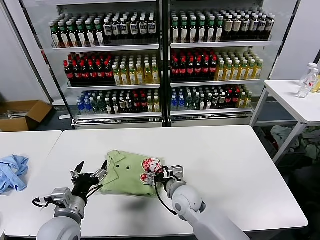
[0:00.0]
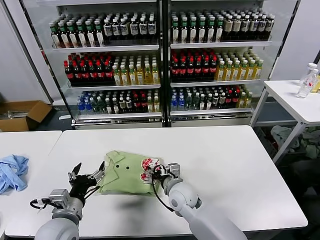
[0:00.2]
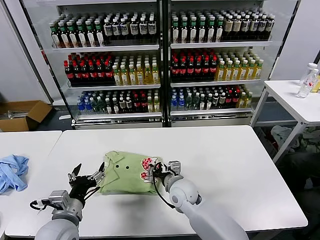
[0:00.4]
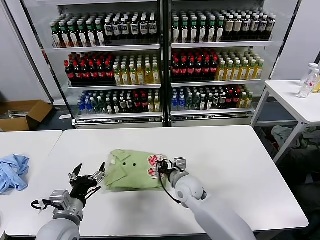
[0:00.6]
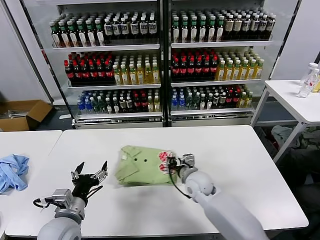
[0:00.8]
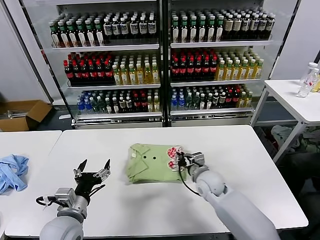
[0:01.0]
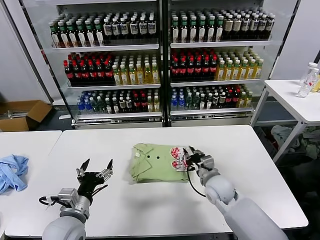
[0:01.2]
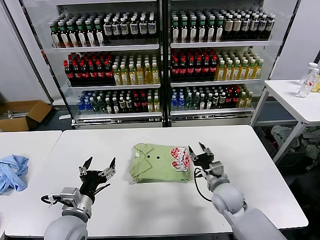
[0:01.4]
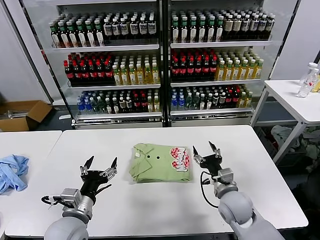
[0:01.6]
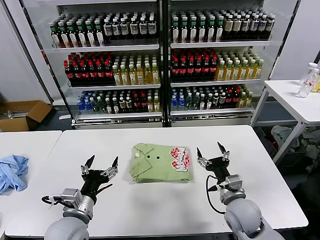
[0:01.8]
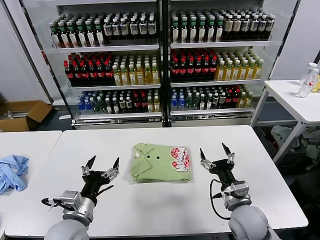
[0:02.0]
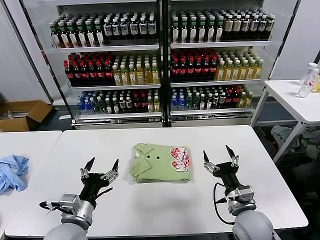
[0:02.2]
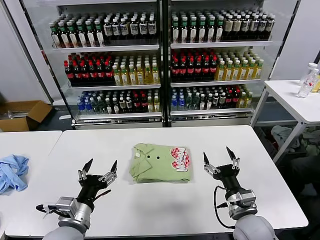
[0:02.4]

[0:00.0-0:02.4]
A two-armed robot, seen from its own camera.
Task of the whole recording: fold and organize the clothes.
Step, 0:00.0 to 0:01.2: Drag the clothes to the center of the table.
0:00.0 to 0:01.2: The right gripper goes some 10 cm to the right, and closes its fingers.
0:01.2 to 0:02.4: The right gripper is displaced backward by roughly 15 cm, and opens its fingers.

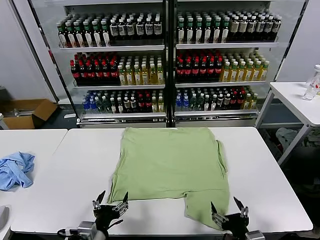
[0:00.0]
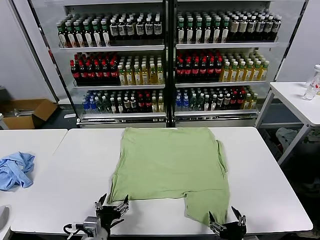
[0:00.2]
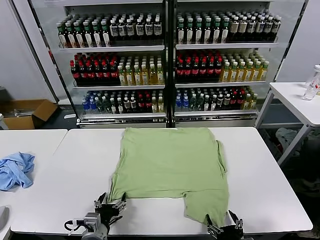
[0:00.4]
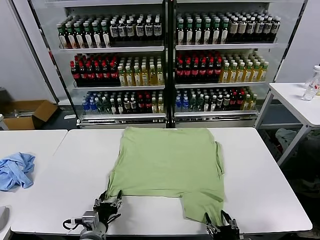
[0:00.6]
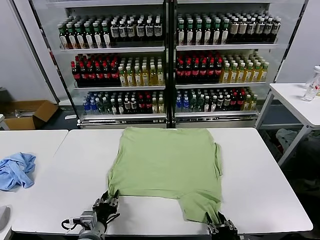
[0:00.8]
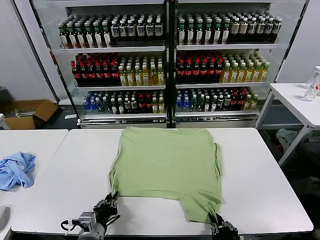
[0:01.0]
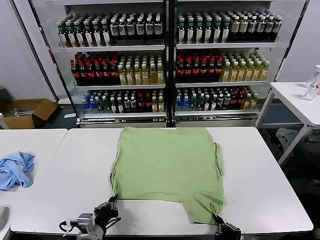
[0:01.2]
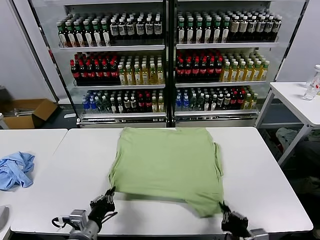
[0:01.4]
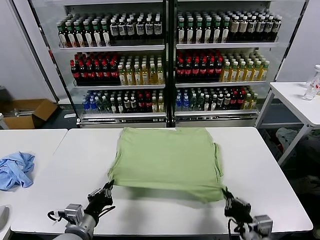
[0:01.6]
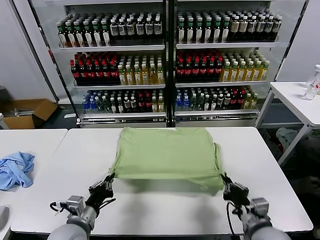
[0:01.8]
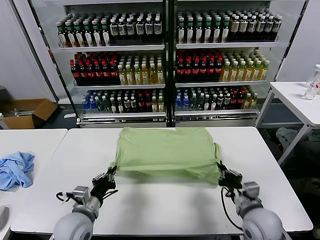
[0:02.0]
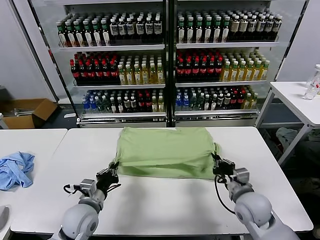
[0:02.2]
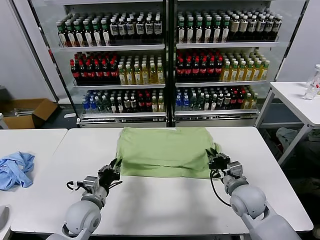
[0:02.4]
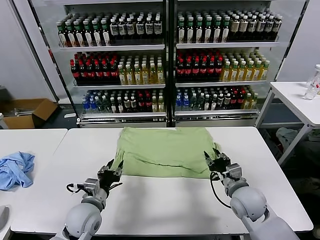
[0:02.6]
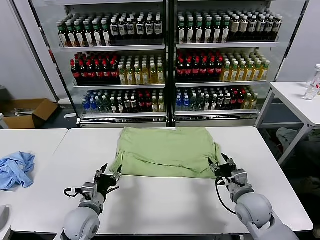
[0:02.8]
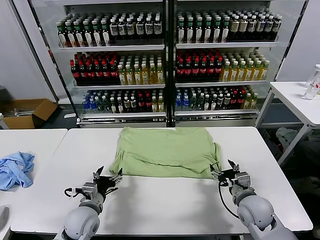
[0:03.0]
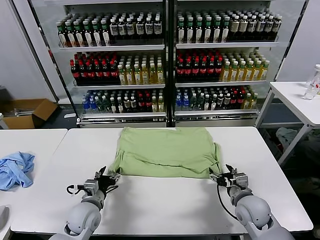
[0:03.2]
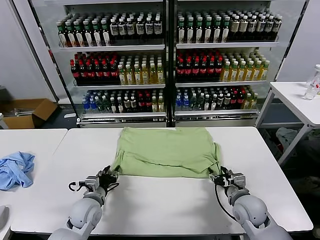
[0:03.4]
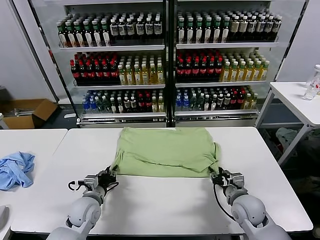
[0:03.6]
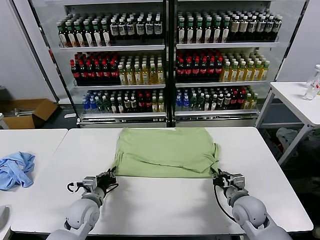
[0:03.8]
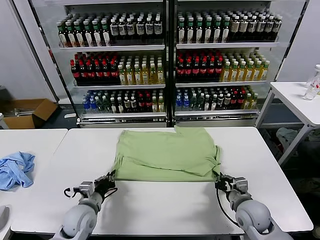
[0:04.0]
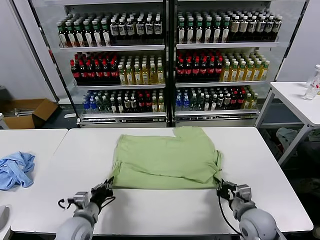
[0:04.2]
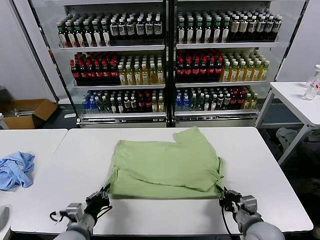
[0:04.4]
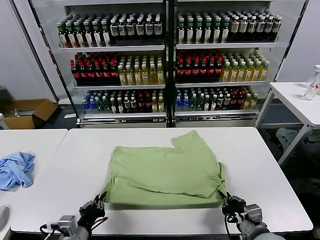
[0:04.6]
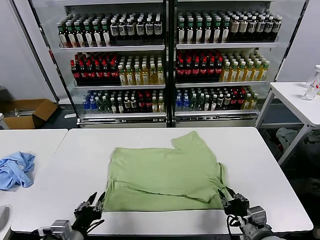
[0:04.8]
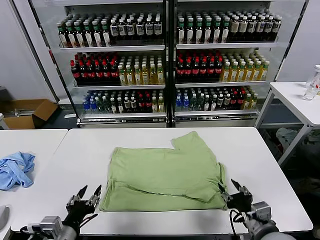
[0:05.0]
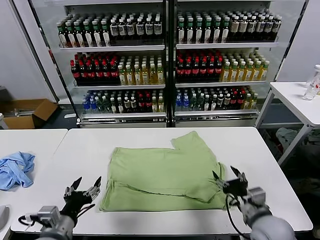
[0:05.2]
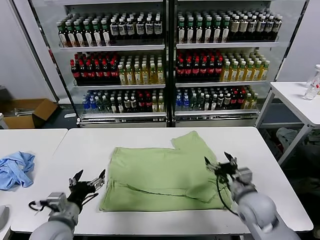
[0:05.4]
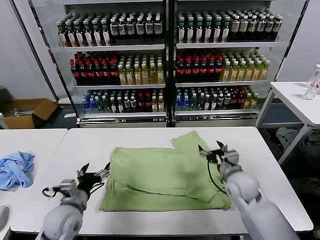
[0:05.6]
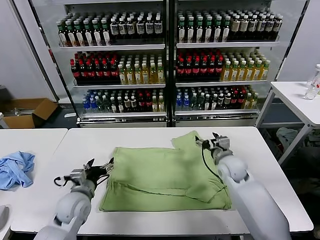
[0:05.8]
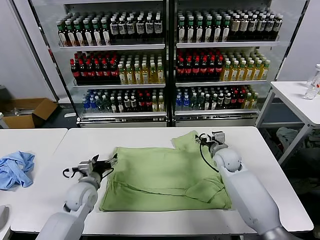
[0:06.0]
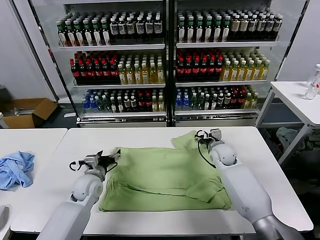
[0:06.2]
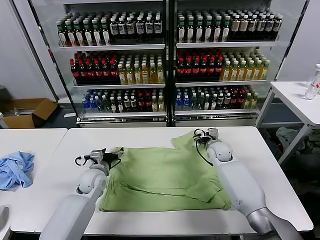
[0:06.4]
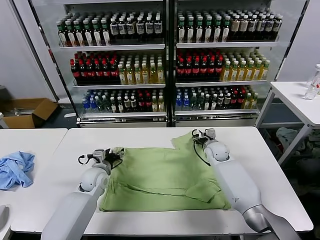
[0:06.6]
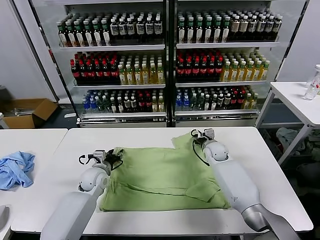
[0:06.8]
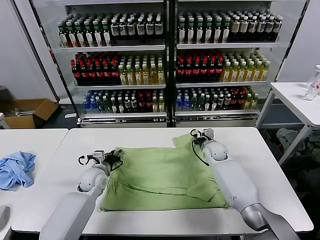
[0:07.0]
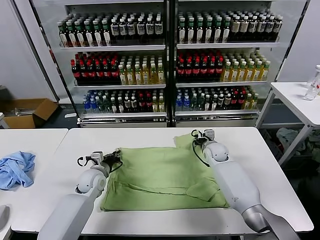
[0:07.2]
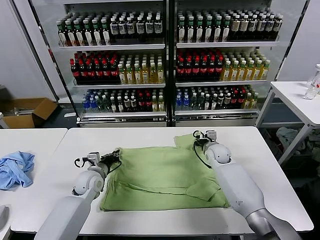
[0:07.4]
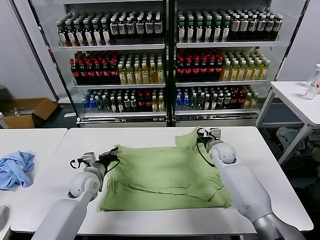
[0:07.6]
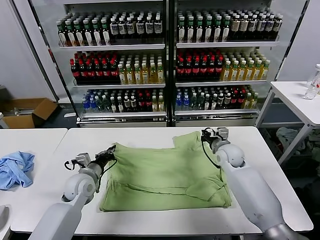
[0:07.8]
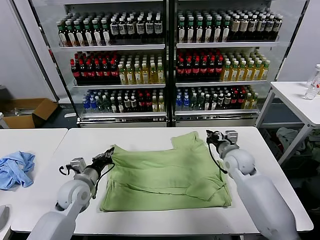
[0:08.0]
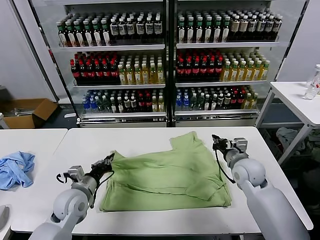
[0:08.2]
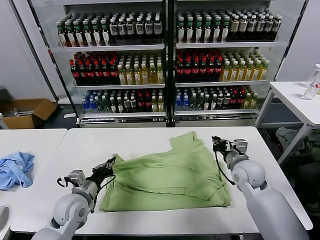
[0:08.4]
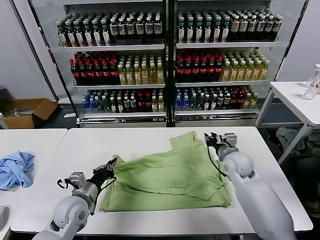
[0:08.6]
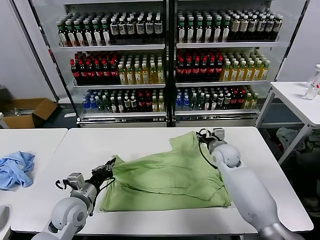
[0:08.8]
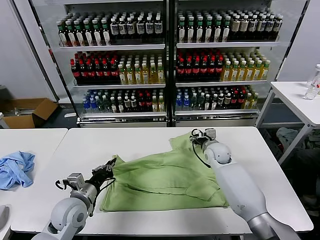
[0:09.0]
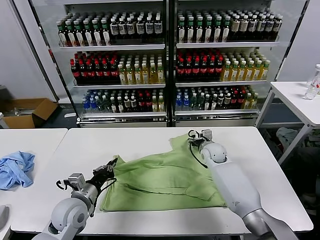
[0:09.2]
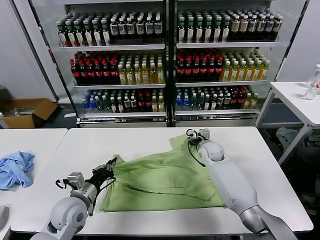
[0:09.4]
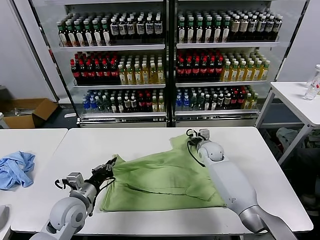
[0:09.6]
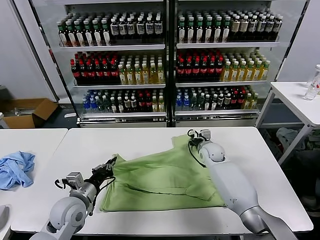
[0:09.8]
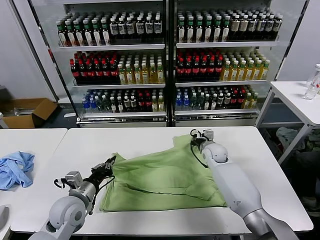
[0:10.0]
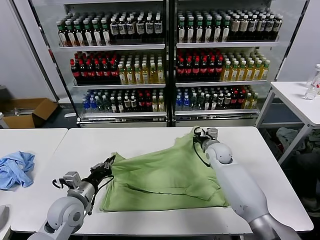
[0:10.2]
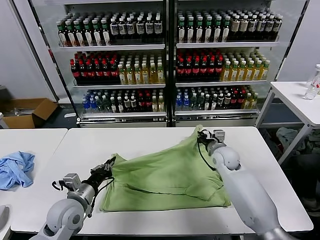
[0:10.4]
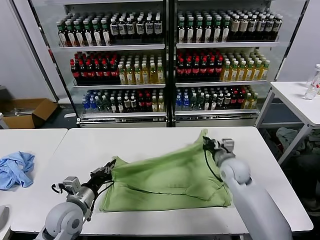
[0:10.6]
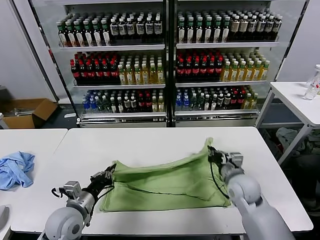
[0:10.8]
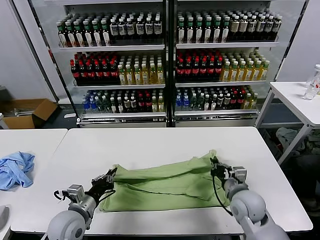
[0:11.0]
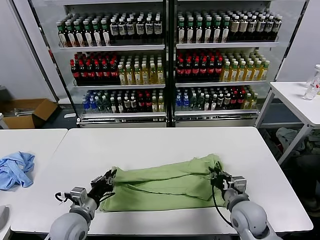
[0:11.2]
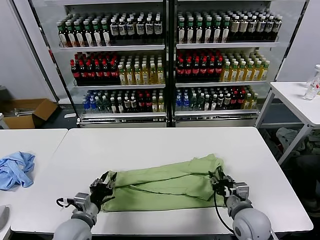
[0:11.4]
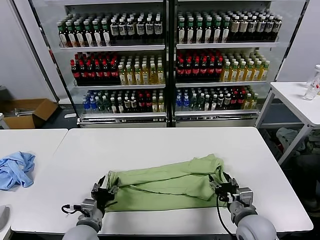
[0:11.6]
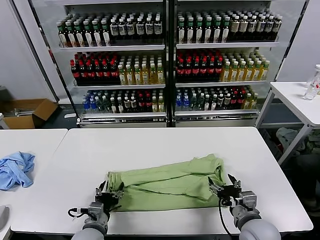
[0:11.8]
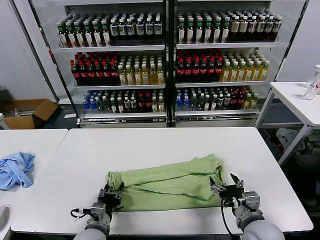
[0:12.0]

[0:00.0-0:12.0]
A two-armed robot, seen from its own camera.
Task of the whole recording: fold and organize the clothes.
Step, 0:00.0 to 0:01.2: use both grippers simultaneously to clamp the lower edge of the clothing fabric.
Step, 0:01.4 to 0:02.4: use both grippers to drag the lower edge of the fabric forward and fold it over the upper edge.
Step, 0:02.6 to 0:04.8: Drag the clothes downward with both gripper.
Step, 0:05.0 to 0:07.2: use both grippers simultaneously to clamp the upper edge of the clothing fabric.
Step, 0:07.4 to 0:11.4: use both grippers to drag the upper edge of the fabric backward and fold it over the lower edge.
0:01.6 to 0:03.0: The right gripper goes some 10 cm forward, and opens up. The left gripper travels forward and downward by approximately 10 cm, and opens its fingers.
0:03.0 to 0:04.4: Both grippers move backward, some 10 cm. The right gripper closes up. Meanwhile the left gripper closes its fingers.
0:04.4 to 0:06.0: The left gripper heads forward, covering about 20 cm, and opens its fingers. The right gripper shifts some 30 cm forward, and opens its fingers.
0:06.0 to 0:07.6: The left gripper closes its fingers. Meanwhile the right gripper closes.
0:07.6 to 0:09.0: The left gripper travels backward by about 10 cm. The right gripper travels backward and back again, approximately 10 cm each way, and opens up.
0:09.0 to 0:10.4: The right gripper travels backward by some 5 cm, and closes up.
0:10.4 to 0:12.0: The right gripper goes about 25 cm backward, and opens its fingers, while the left gripper is displaced downward, to the right and backward by approximately 10 cm, and opens its fingers.
